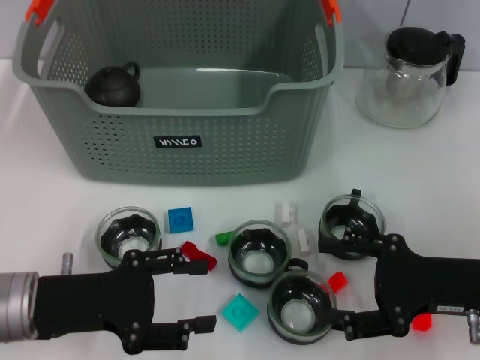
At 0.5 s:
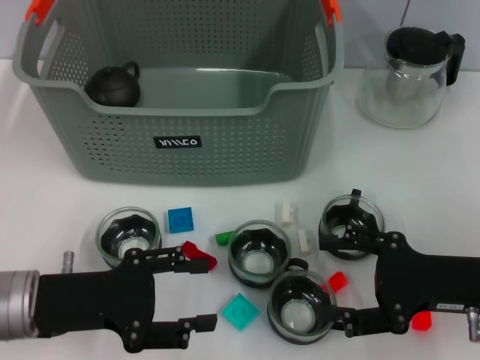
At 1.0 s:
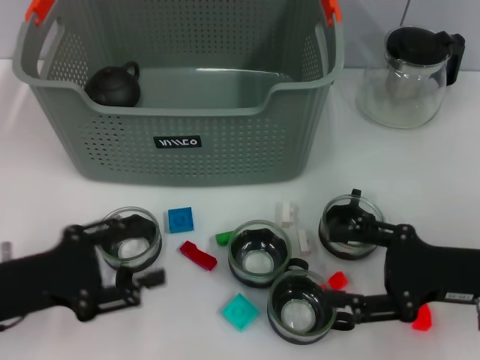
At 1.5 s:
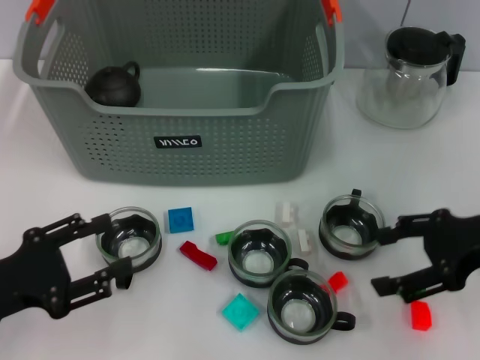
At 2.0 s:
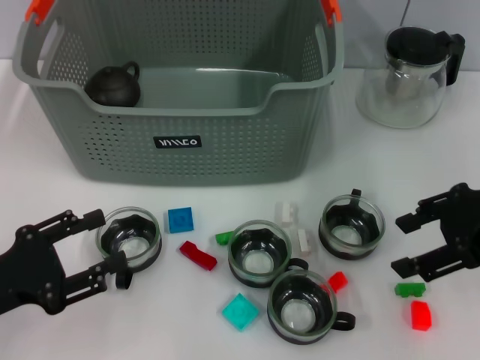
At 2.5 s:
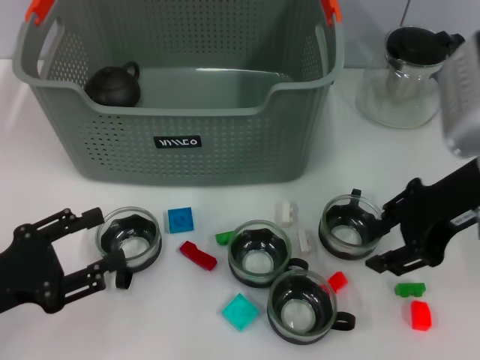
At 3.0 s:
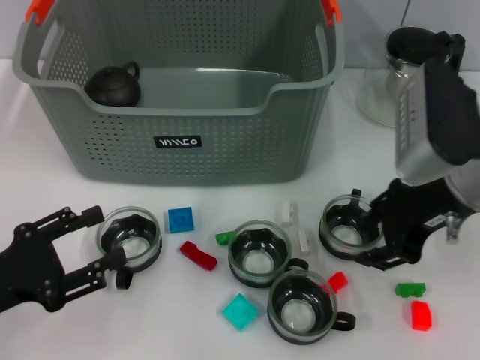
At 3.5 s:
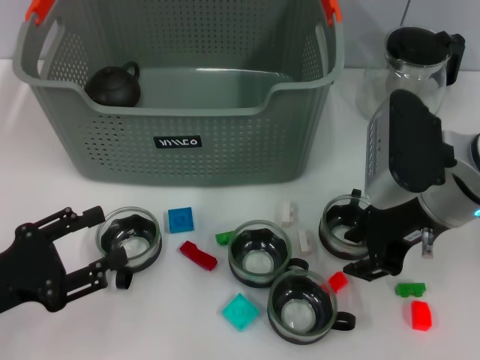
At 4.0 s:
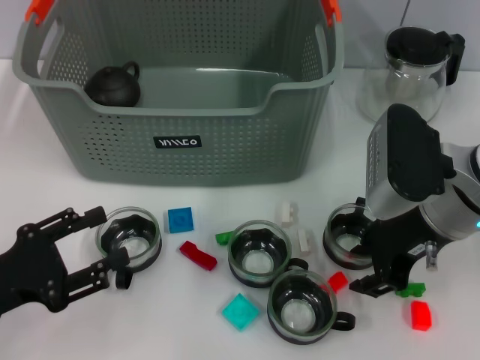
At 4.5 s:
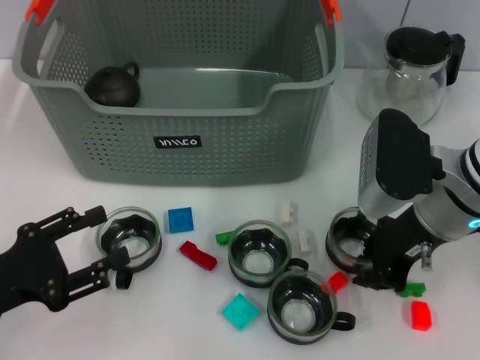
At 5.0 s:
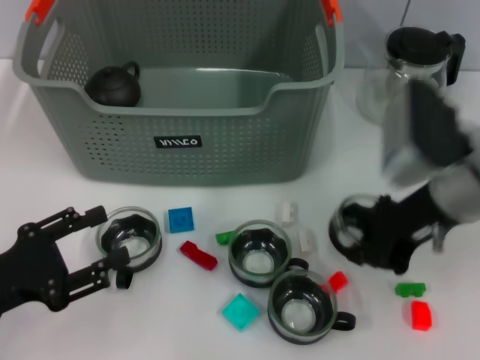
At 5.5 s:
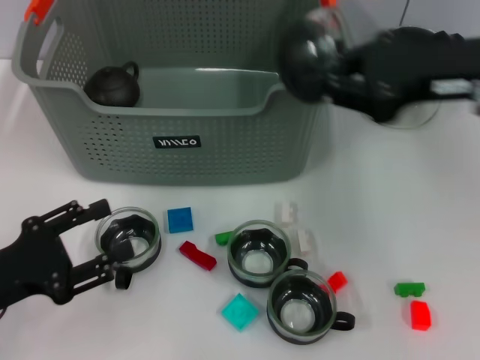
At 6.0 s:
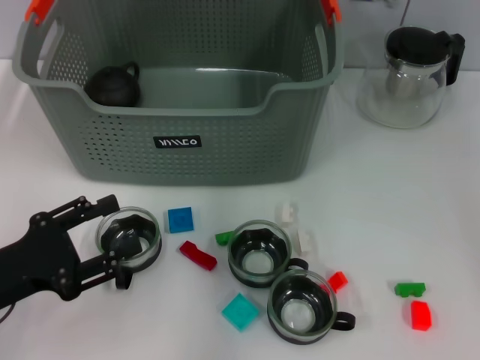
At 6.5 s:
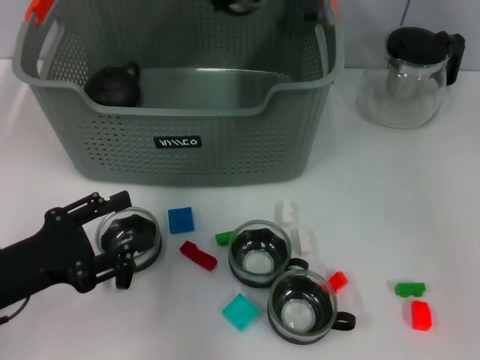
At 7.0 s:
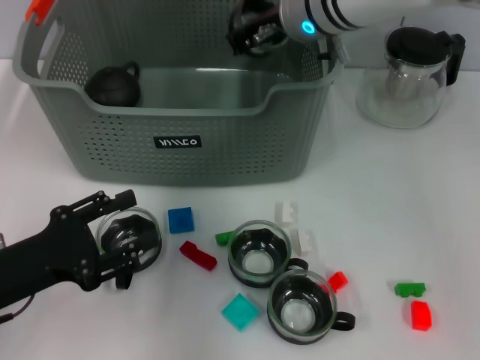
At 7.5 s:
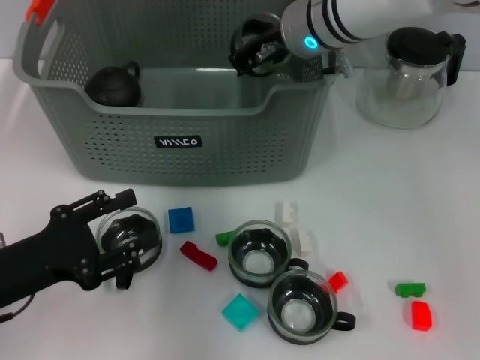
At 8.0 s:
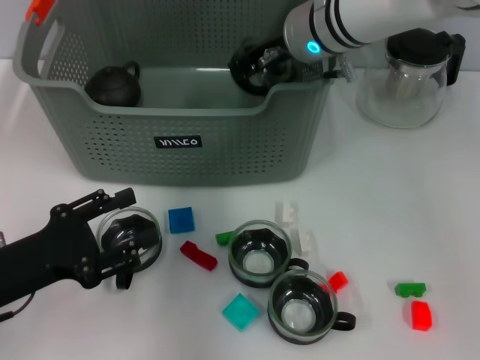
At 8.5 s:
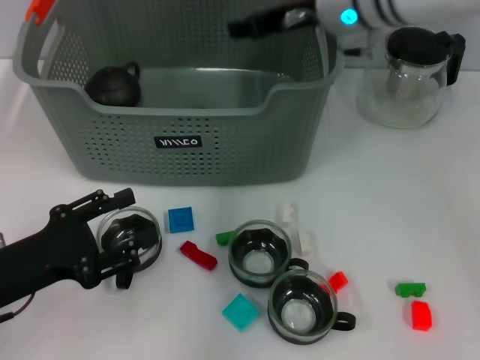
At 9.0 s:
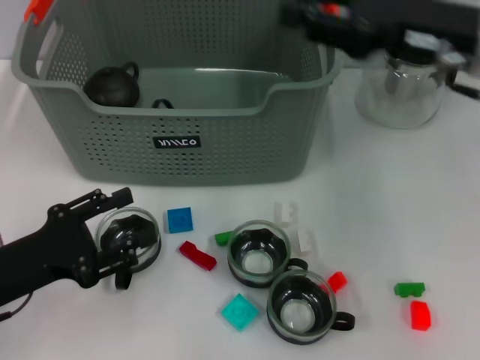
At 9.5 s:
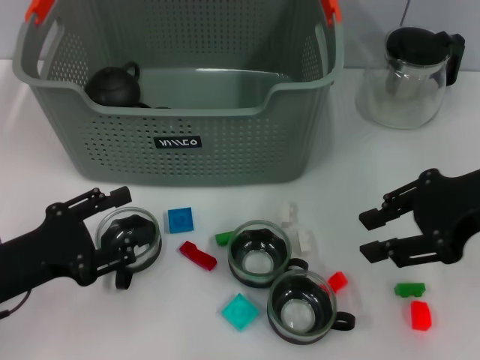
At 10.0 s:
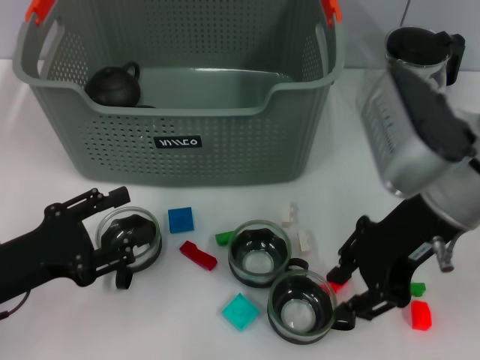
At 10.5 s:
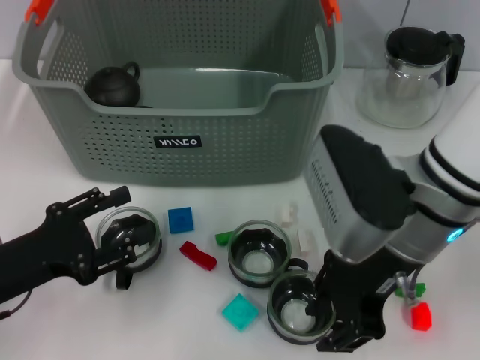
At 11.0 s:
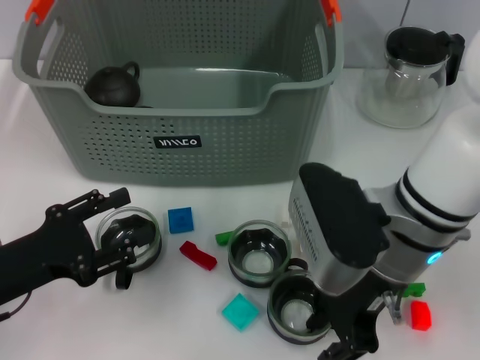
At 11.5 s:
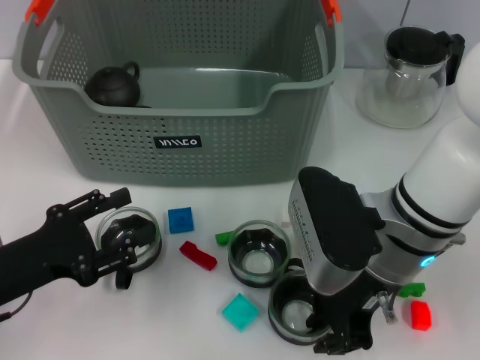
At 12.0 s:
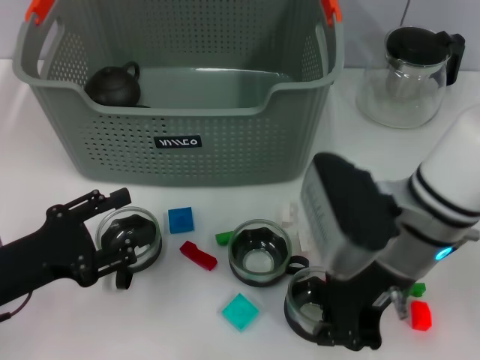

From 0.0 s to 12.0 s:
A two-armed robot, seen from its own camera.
Task of the whole recording: pick up the teacup on the table and place it into the storage bin, pick up the block on the table and place it into the storage bin.
Step, from 0.0 s to 4.5 s: Grasp the cup with right gripper.
Step, from 5.0 s to 8.5 s: Place the cup in the storage box with right gripper.
Step, from 9.0 s to 11.5 s: Grasp the cup with right gripper.
From 0.0 s to 2.0 s: The left gripper travels to the left by about 5 cm; the right gripper heads upward and forward, covering approximately 15 cm.
From 2.0 s to 4.0 s: The right gripper travels to the left by approximately 10 cm, and closes.
From 4.0 s to 6.0 s: The right gripper moves upward, forward and to the left, about 20 cm, and closes.
From 6.0 s to 8.0 s: The right gripper heads downward, covering some 10 cm.
From 8.0 s to 10.0 s: The right gripper is displaced backward and to the right by some 20 cm, and opens up.
From 10.0 s to 12.0 s: The right gripper heads downward, covering some 5 cm, and closes.

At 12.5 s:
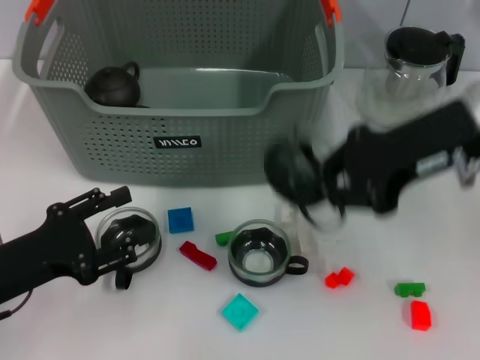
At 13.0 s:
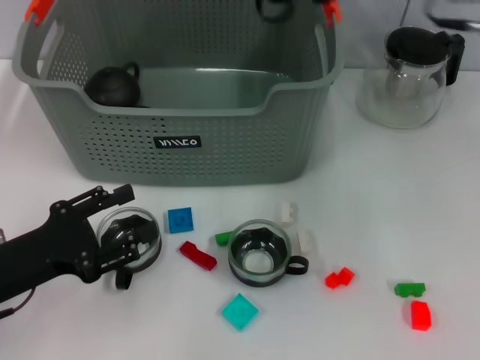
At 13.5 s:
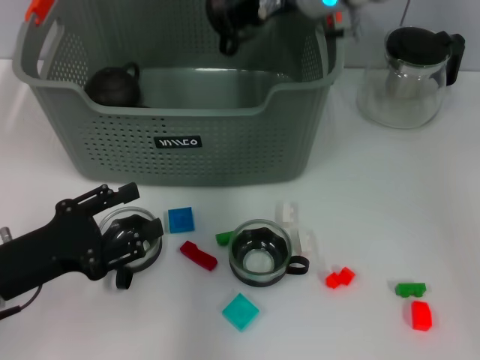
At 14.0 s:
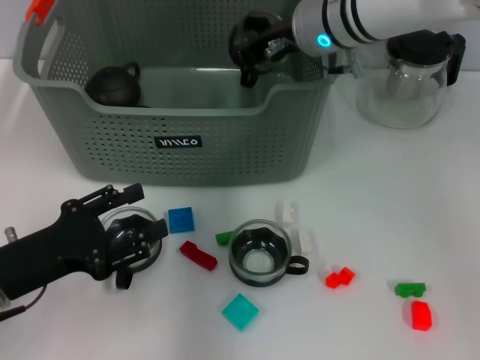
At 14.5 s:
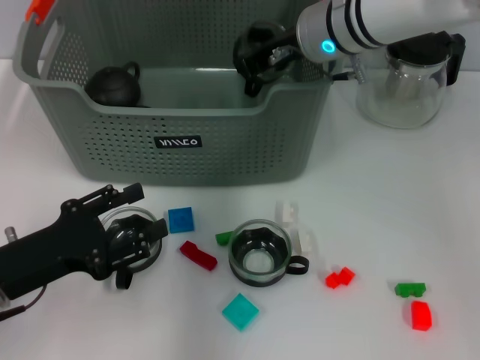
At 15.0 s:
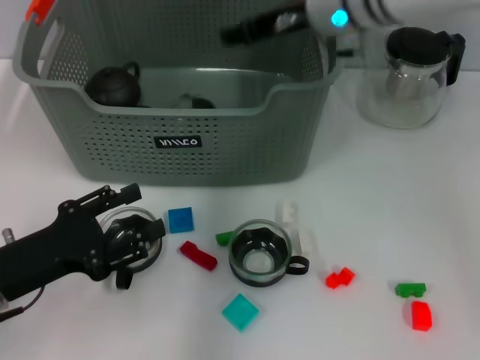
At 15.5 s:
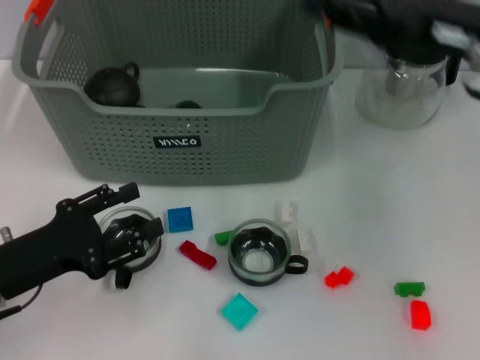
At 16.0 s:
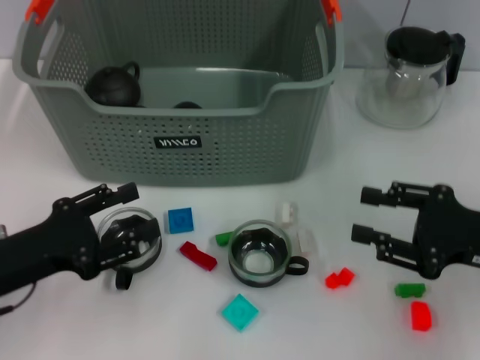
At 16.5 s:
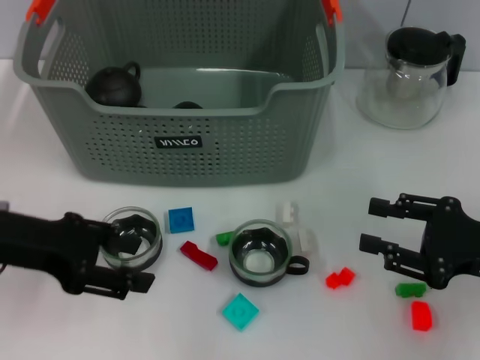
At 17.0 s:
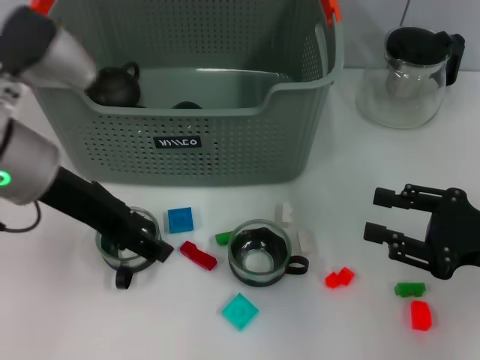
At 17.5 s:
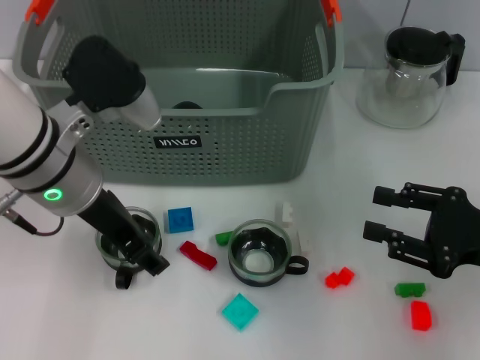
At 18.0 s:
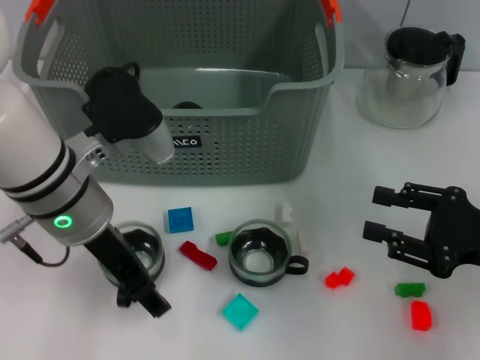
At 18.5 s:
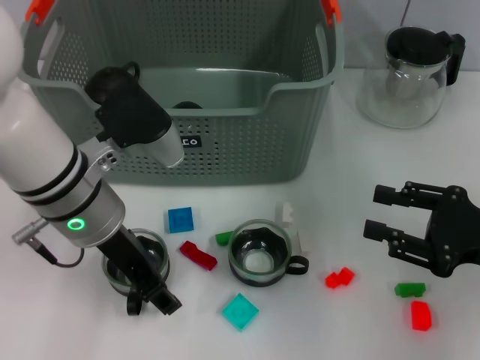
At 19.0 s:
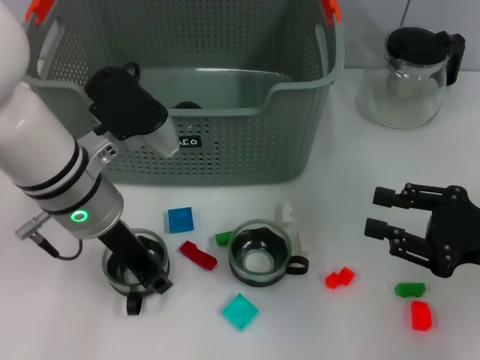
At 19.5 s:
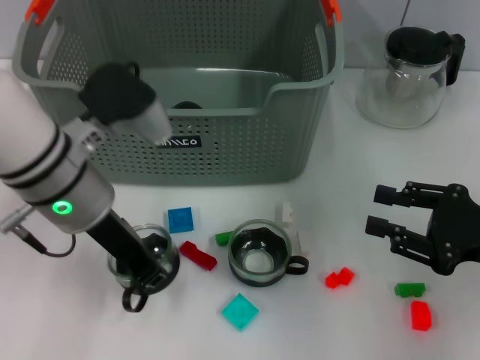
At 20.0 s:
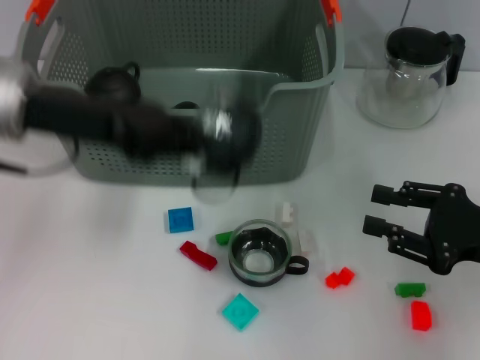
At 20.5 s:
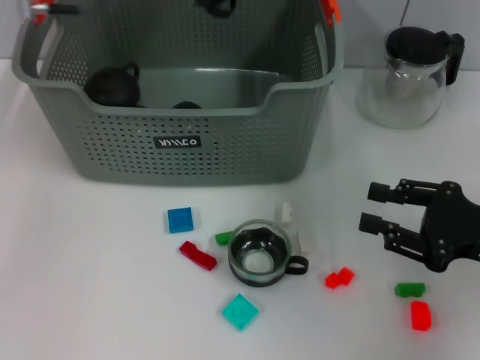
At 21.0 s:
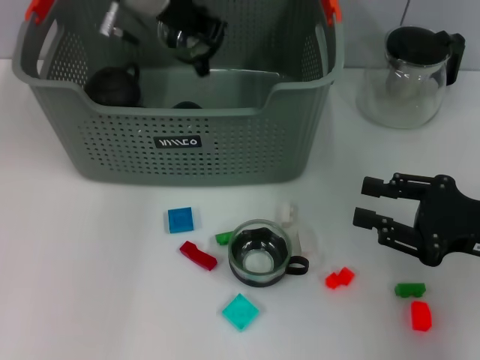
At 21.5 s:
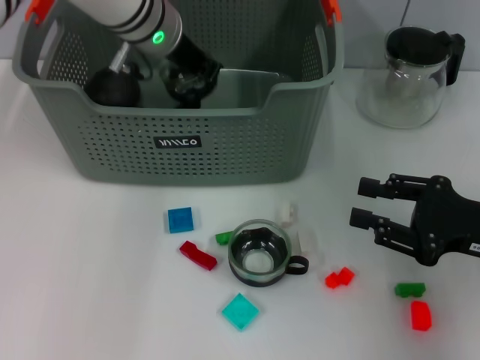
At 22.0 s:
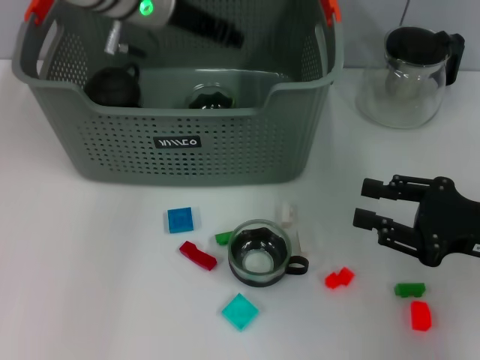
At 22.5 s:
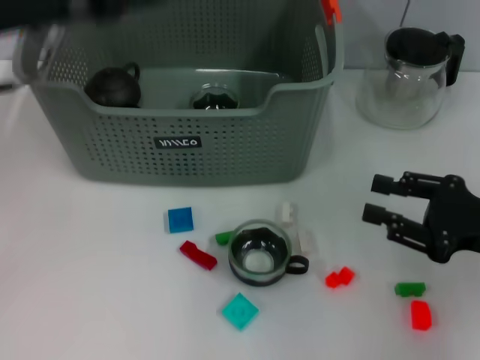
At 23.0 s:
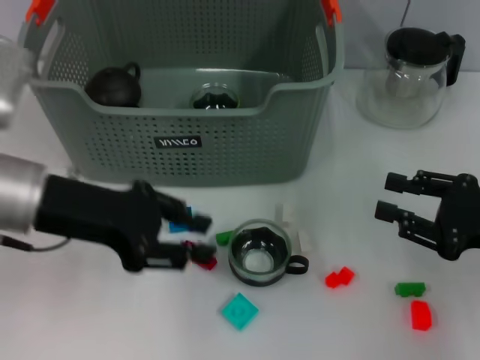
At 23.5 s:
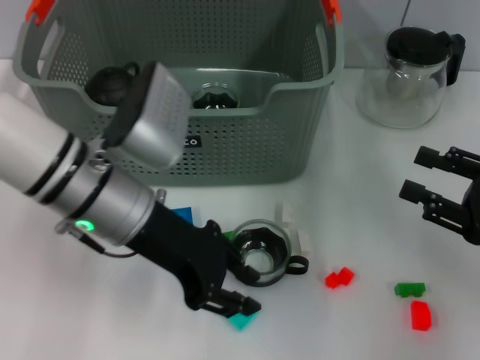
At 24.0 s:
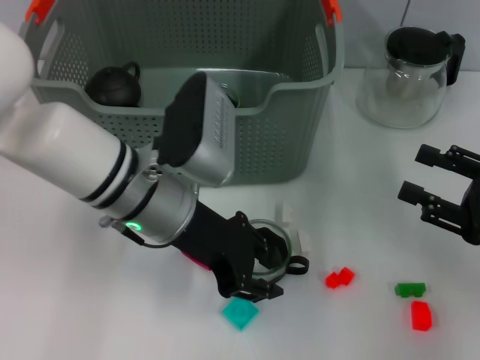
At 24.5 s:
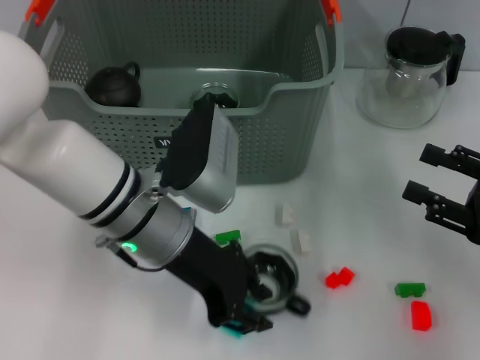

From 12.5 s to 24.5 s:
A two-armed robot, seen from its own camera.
Task of the whole recording: pick up the teacup on the table and place it into the storage bin, pick up the block on the table and place it into the storage bin.
Step, from 12.5 s to 15.5 s: Place the cup in the storage box with right gripper.
Step, from 16.0 s to 17.5 s: Grasp the cup with left gripper.
Step, from 18.0 s to 22.0 s: Place the cup in the storage box with left gripper.
From 12.5 s to 14.5 s: The right gripper shifts roughly 15 cm forward and to the left.
From 14.5 s to 16.5 s: The right gripper moves to the right, backward and downward, roughly 30 cm, and opens. Meanwhile the left gripper goes approximately 10 cm upward.
From 16.5 s to 18.5 s: The left gripper is displaced to the right by approximately 10 cm.
From 18.5 s to 20.5 s: The left gripper shifts approximately 15 cm upward and forward, and closes up.
From 20.5 s to 22.5 s: The left gripper heads backward and to the left, covering about 10 cm, and opens up.
From 22.5 s to 24.5 s: The left gripper heads to the right and downward, covering about 20 cm.

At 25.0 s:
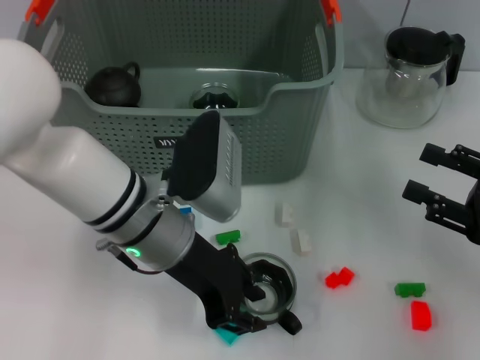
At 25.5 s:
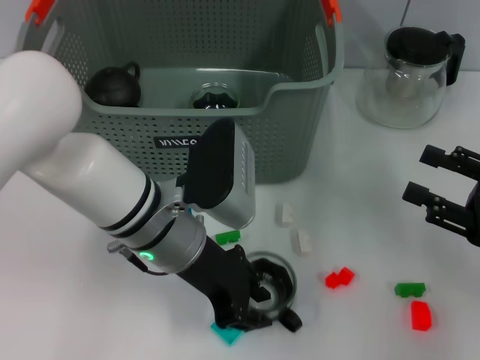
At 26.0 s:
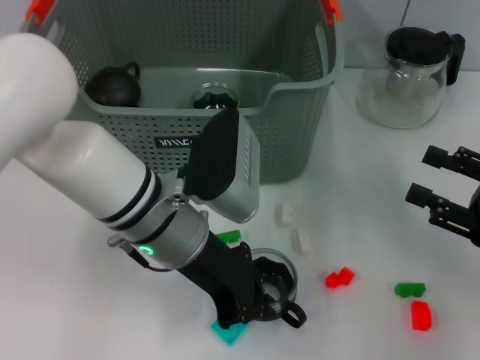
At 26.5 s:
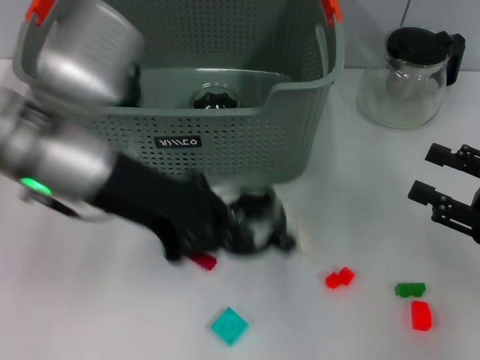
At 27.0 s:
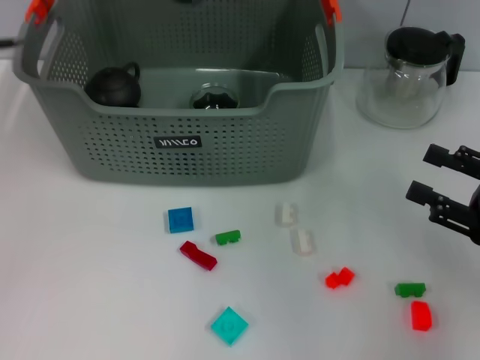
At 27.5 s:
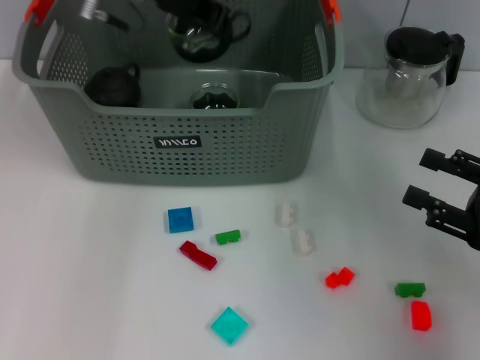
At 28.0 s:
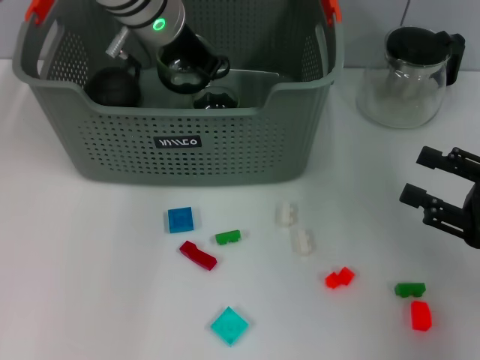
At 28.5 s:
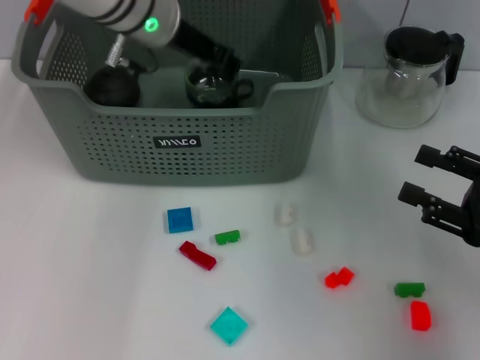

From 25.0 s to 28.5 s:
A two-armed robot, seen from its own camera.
Task of the whole recording: pick up the teacup on the table and place it into the storage bin, pick up the block on the table and place it into the storage bin.
From 25.0 s to 27.0 s: The left gripper moves upward and to the left, roughly 20 cm, and closes its fingers.
From 27.0 s to 28.5 s: The left gripper shifts some 15 cm to the right, forward and downward.
